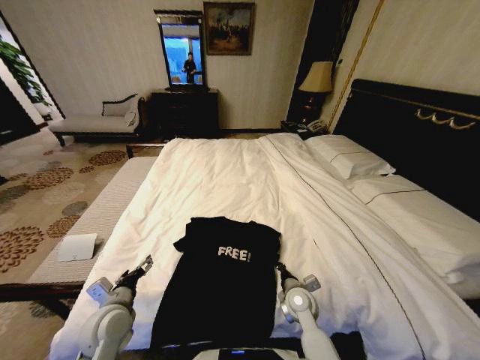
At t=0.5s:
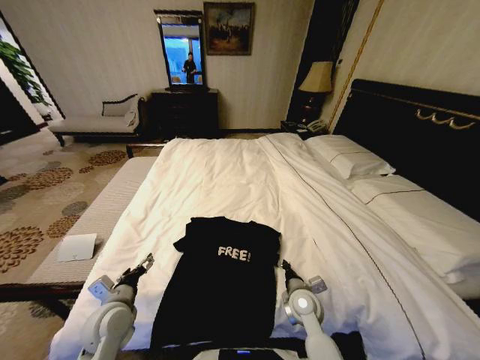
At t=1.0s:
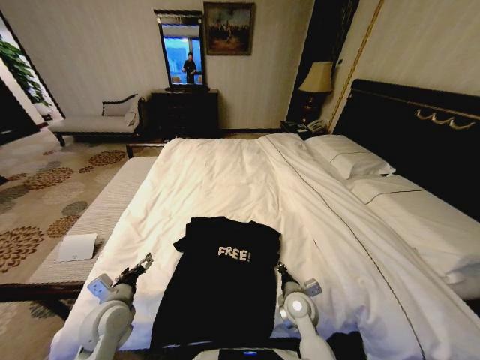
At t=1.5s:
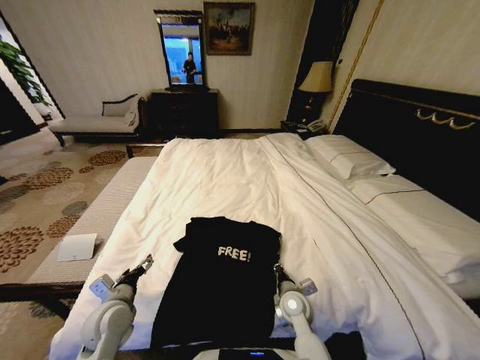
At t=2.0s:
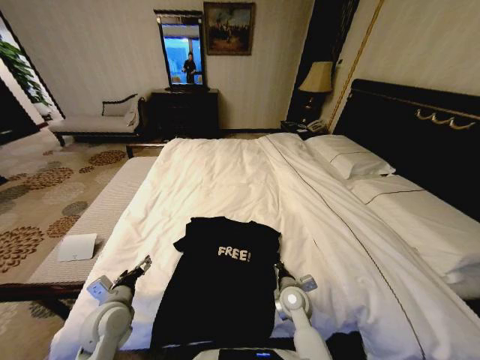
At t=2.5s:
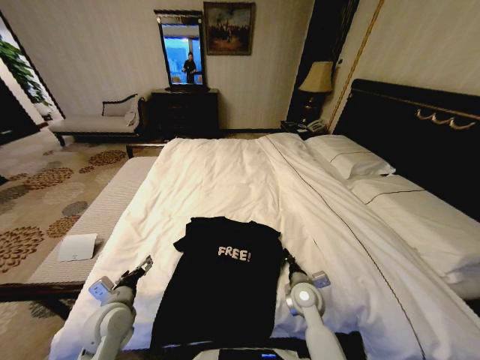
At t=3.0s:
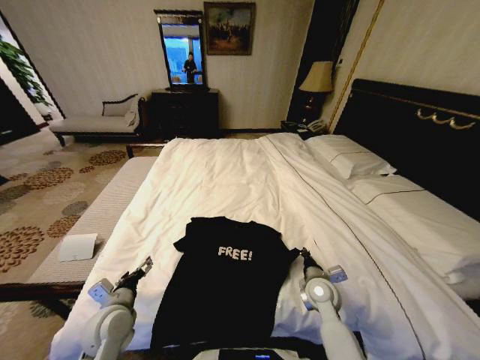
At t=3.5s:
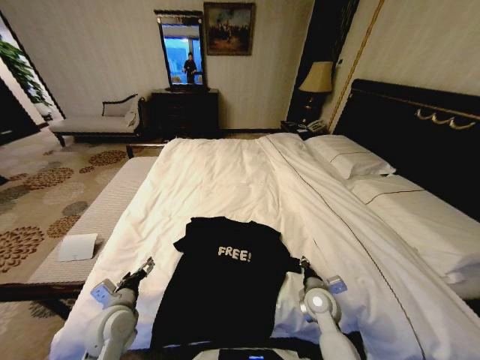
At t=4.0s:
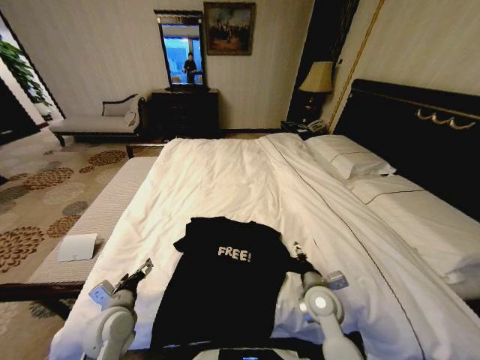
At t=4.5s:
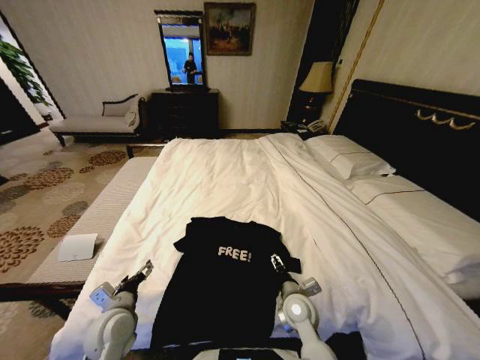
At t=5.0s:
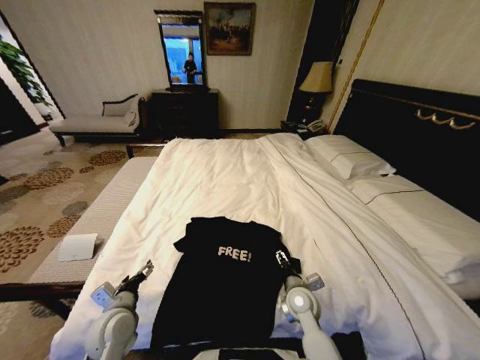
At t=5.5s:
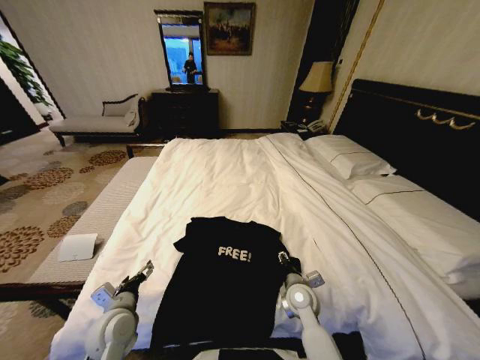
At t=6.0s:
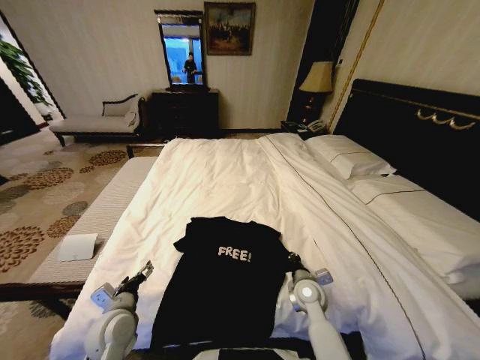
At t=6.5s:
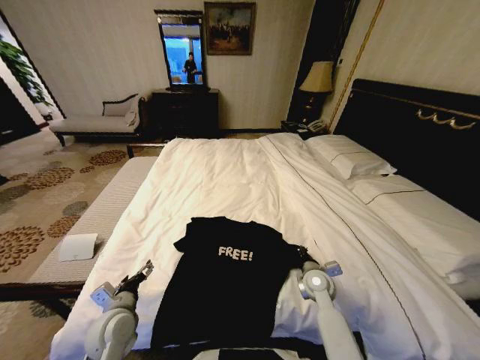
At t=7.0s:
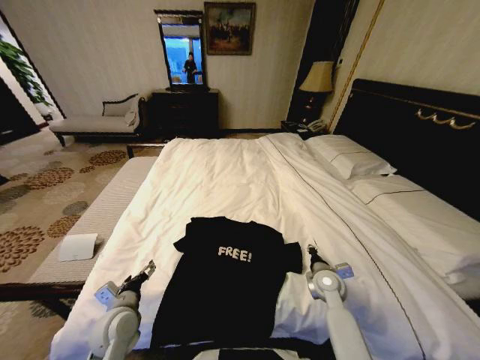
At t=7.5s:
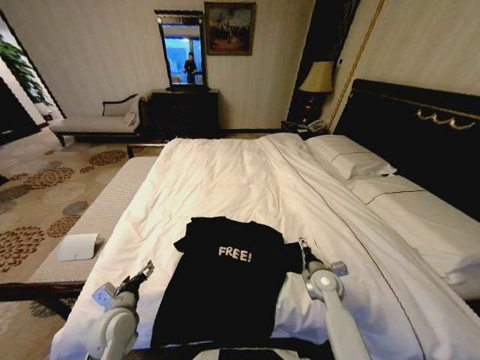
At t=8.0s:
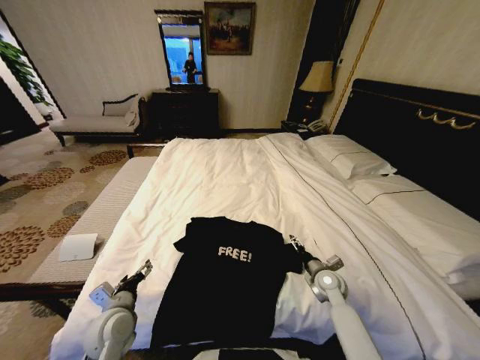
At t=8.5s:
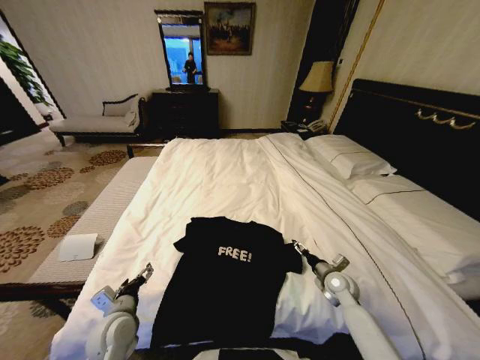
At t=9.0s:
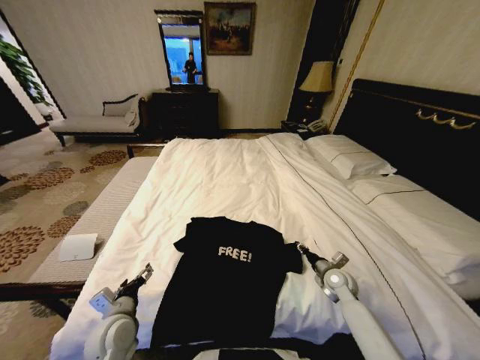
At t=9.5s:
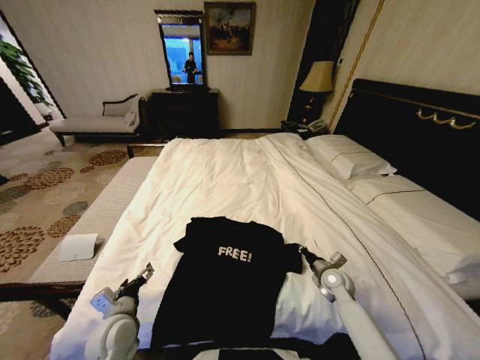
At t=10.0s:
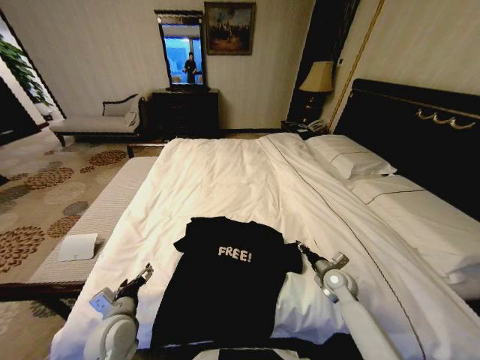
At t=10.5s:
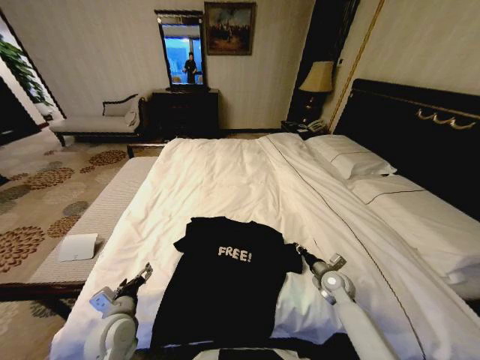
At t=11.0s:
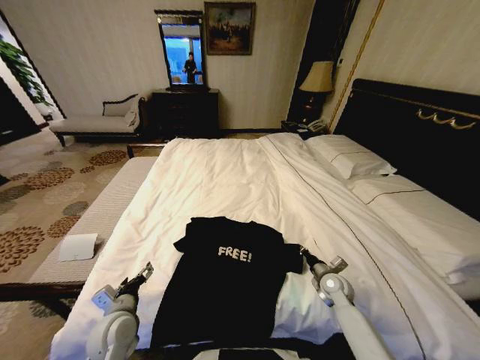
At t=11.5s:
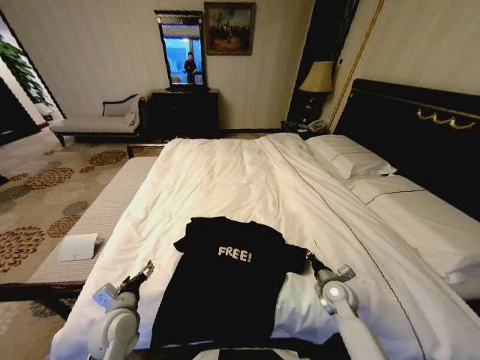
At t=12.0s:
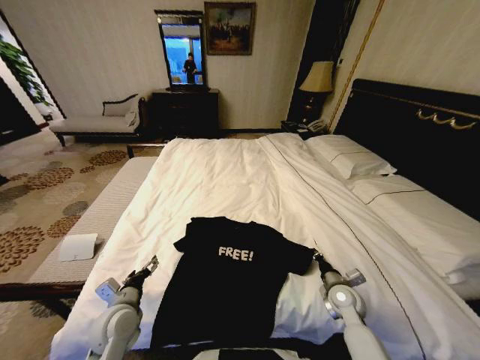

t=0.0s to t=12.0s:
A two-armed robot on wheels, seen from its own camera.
Task of the whole recording: Fold the clothes on the bed.
t=0.0s to t=2.0s: There are only small adjustments of the grippers.
t=2.0s to t=4.0s: The right gripper shifts some 10 cm upward and to the right, and opens.
t=4.0s to t=6.0s: The right gripper changes place by approximately 5 cm, and closes its fingers.
t=6.0s to t=8.0s: The right gripper goes some 10 cm to the right, and opens up.
t=8.0s to t=10.0s: The right gripper closes up.
t=10.0s to t=12.0s: The right gripper heads backward, covering about 5 cm.

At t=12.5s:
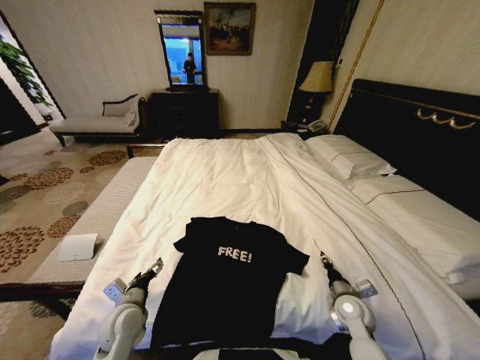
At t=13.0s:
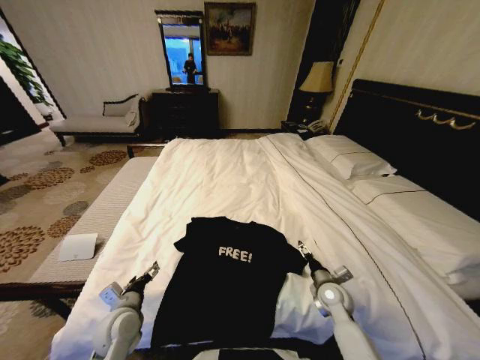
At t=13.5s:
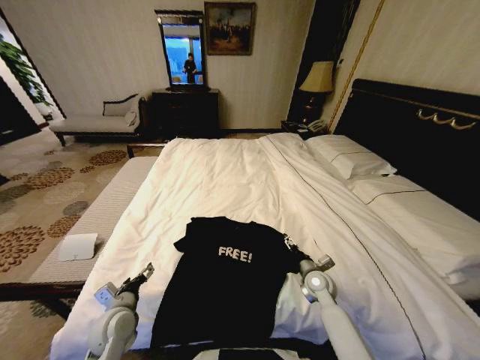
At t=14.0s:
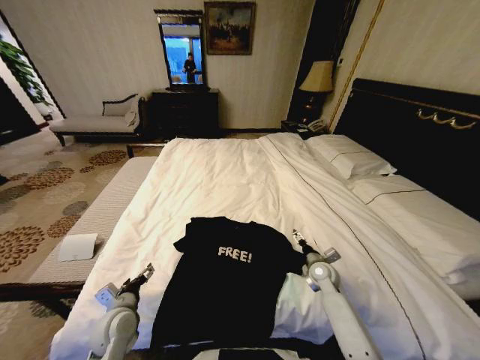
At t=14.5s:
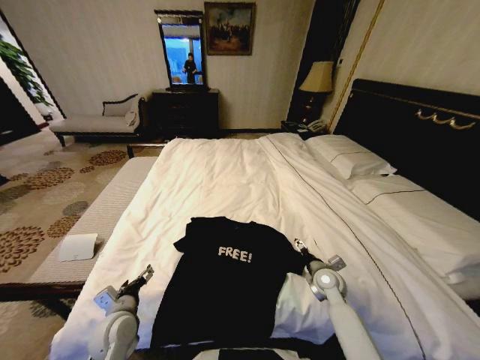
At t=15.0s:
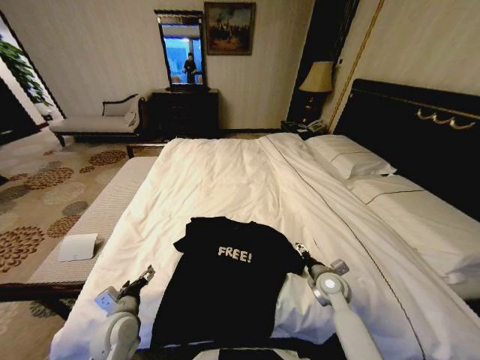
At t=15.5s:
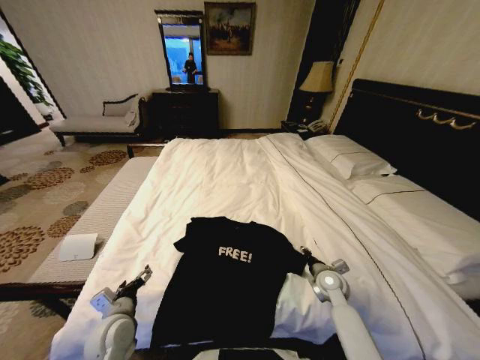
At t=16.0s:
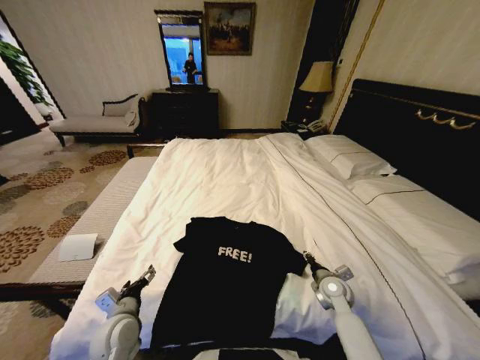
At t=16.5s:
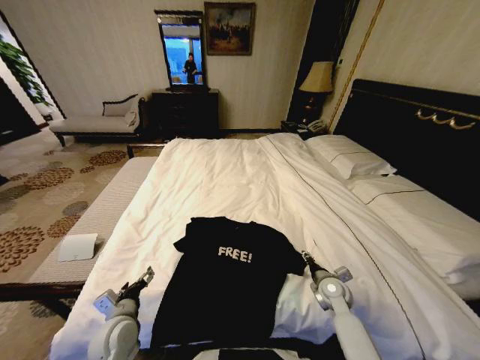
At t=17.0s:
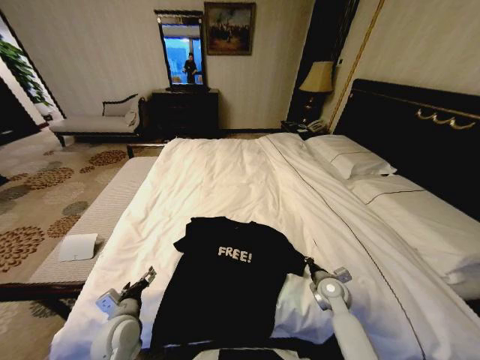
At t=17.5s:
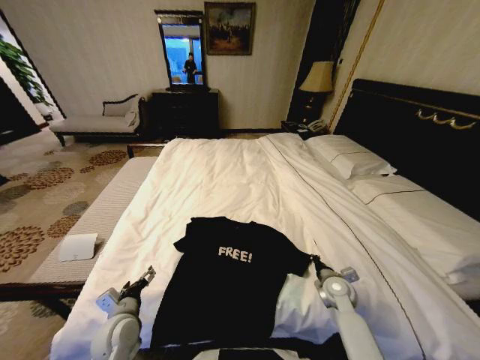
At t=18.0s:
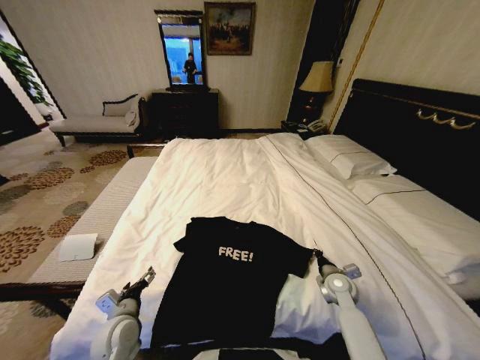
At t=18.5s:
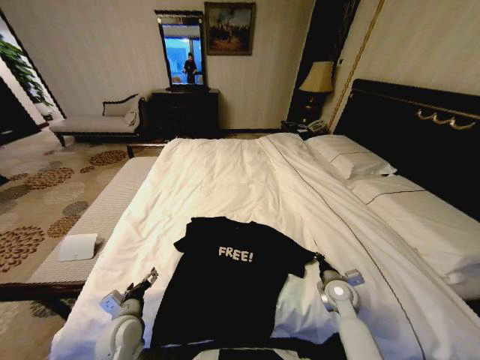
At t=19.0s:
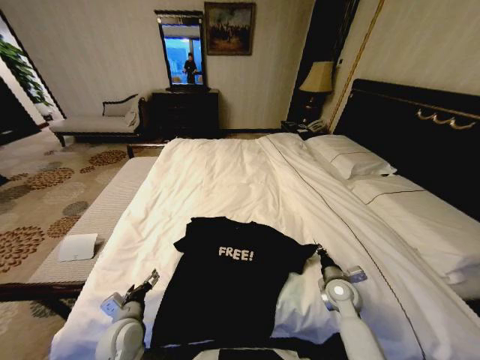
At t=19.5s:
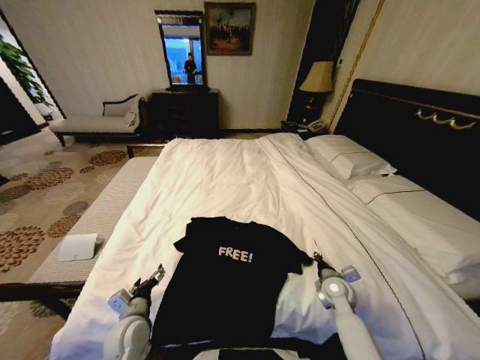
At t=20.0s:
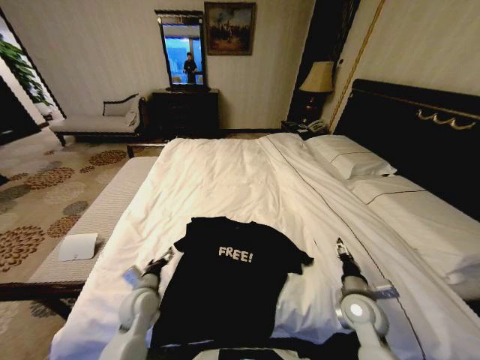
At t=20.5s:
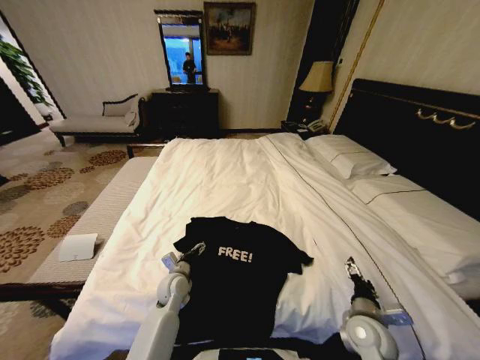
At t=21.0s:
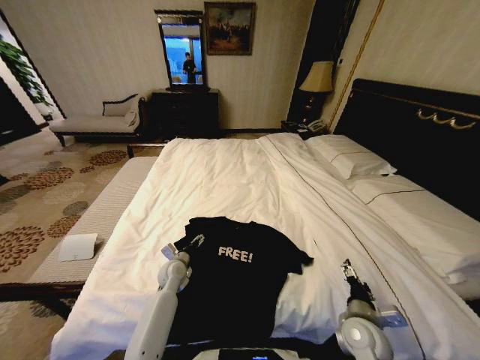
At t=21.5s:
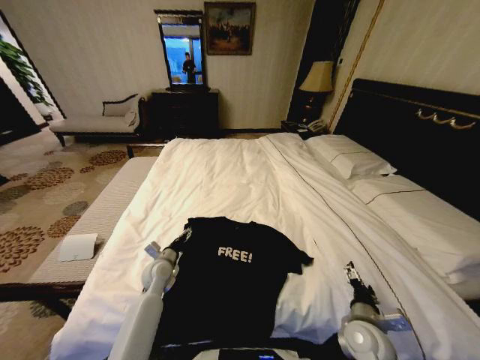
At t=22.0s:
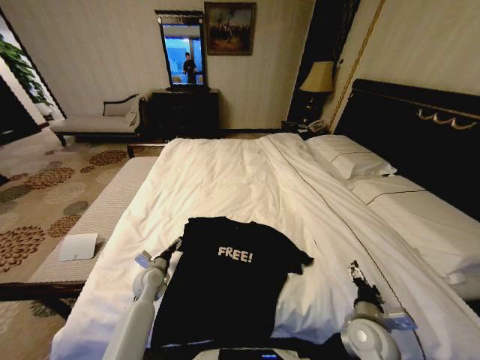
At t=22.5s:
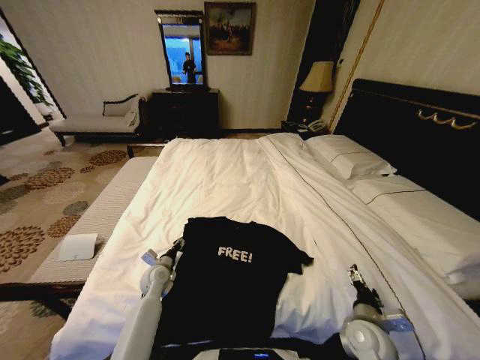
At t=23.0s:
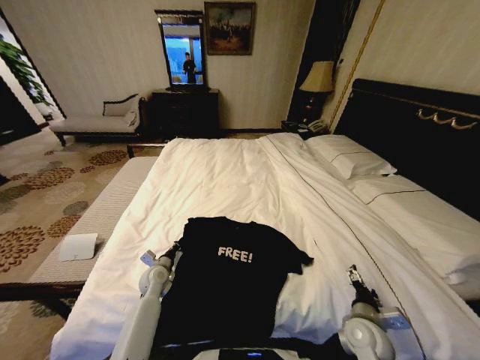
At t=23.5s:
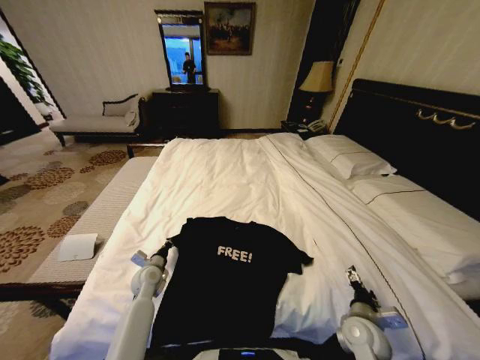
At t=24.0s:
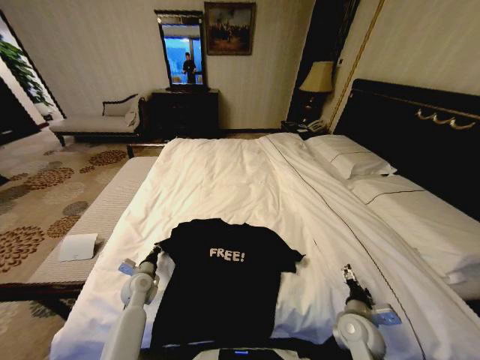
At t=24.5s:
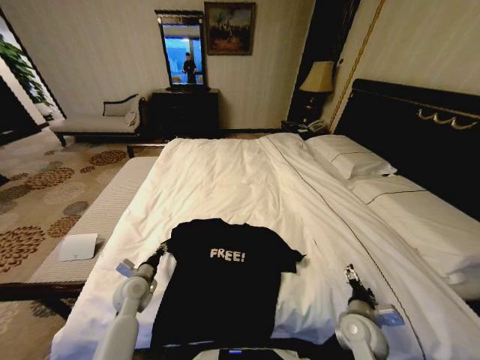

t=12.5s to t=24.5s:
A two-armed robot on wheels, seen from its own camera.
Task of the whole recording: Fold the clothes on the bed.
t=12.5s to t=14.5s: The right gripper heads forward, covering approximately 10 cm, and opens.
t=14.5s to t=16.5s: The grippers move only a little.
t=16.5s to t=18.5s: The right gripper closes.
t=18.5s to t=20.5s: The left gripper heads forward and to the right, covering roughly 15 cm. The right gripper travels backward by roughly 10 cm, and opens its fingers.
t=20.5s to t=22.5s: The left gripper shifts about 5 cm to the left, and closes up.
t=22.5s to t=24.5s: The left gripper moves backward, some 5 cm.

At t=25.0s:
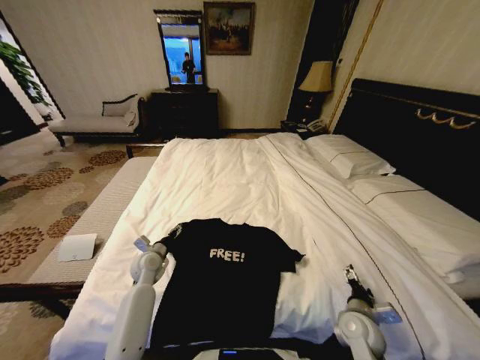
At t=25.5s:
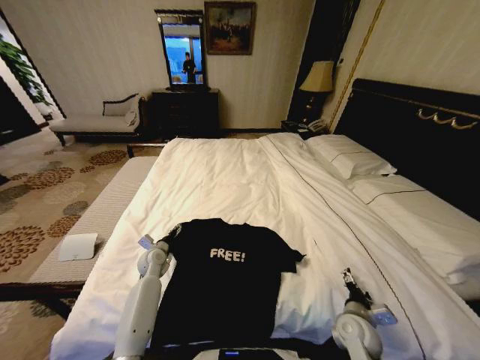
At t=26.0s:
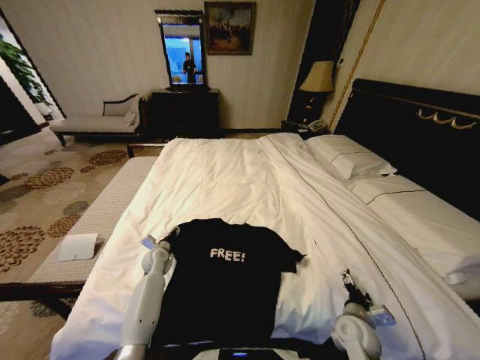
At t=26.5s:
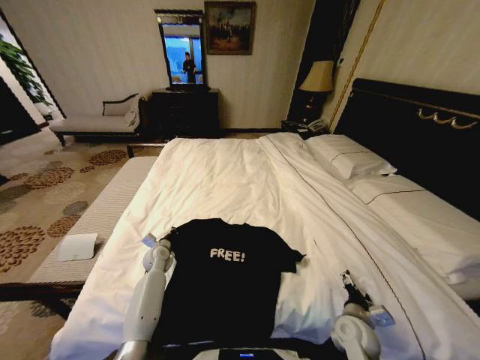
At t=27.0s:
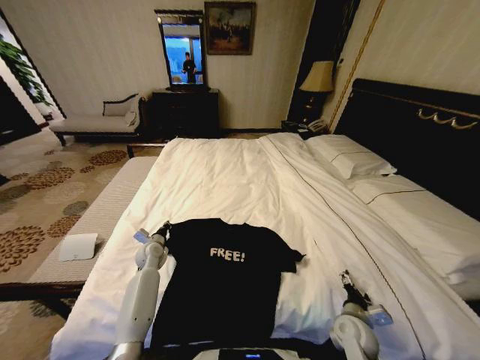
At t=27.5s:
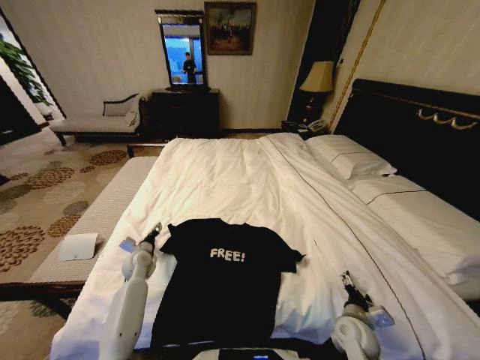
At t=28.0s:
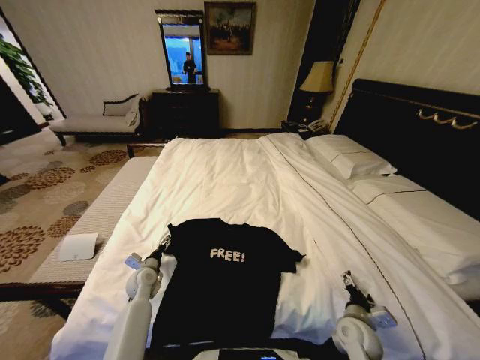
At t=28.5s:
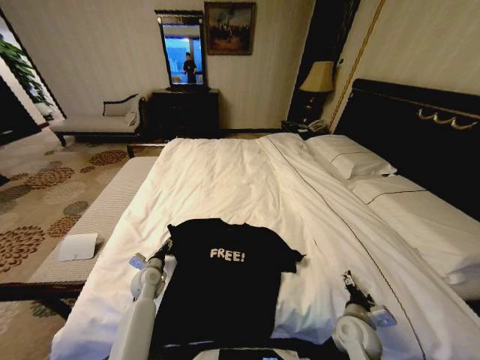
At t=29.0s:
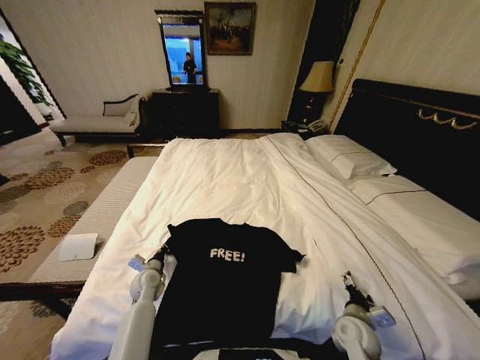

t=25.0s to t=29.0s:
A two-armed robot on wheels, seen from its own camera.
Task of the whole recording: Fold the clothes on the bed.
t=25.0s to t=27.0s: The left gripper heads forward, covering approximately 5 cm, and closes its fingers.
t=27.0s to t=29.0s: The left gripper heads backward, covering roughly 10 cm, and opens, then closes again.
